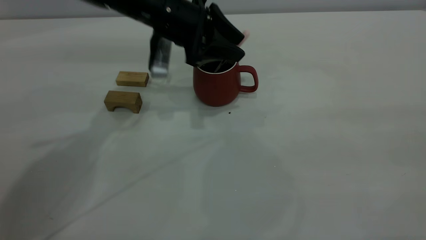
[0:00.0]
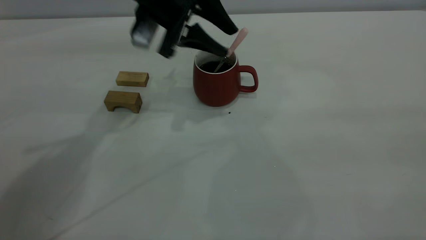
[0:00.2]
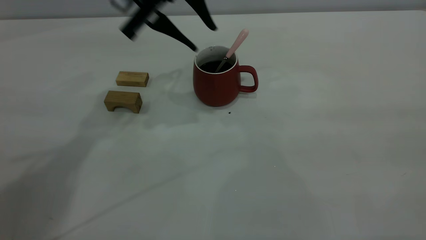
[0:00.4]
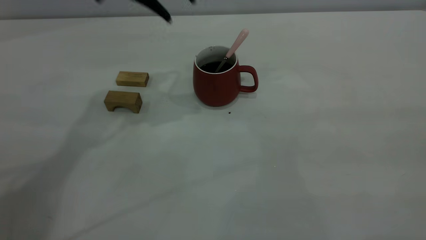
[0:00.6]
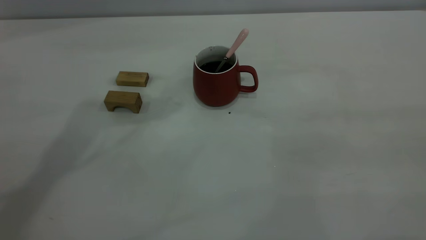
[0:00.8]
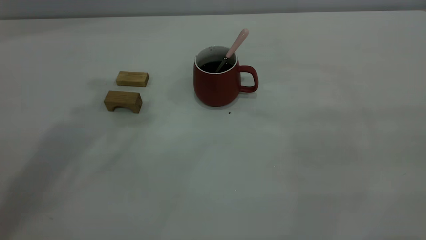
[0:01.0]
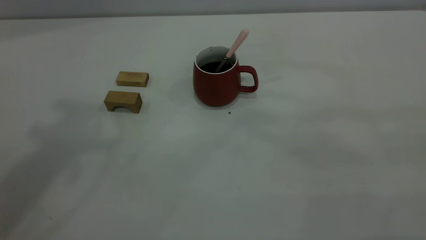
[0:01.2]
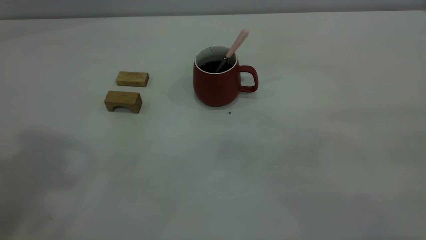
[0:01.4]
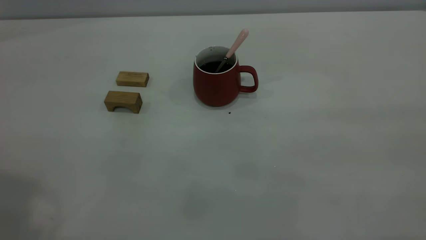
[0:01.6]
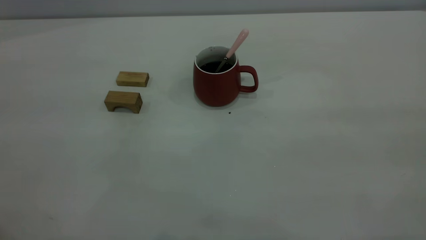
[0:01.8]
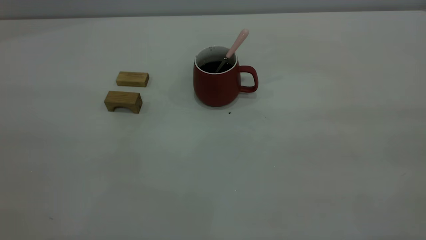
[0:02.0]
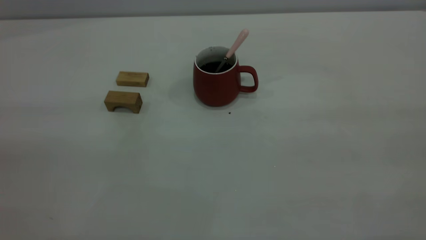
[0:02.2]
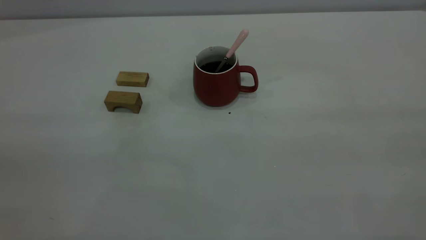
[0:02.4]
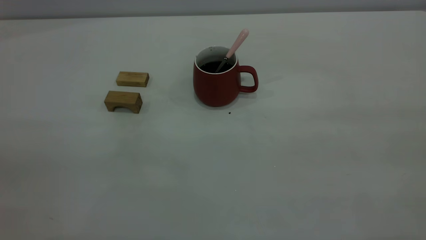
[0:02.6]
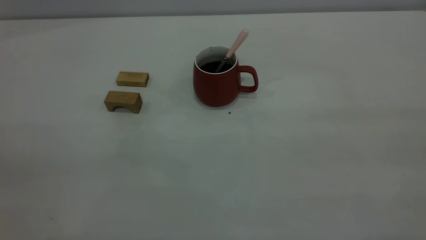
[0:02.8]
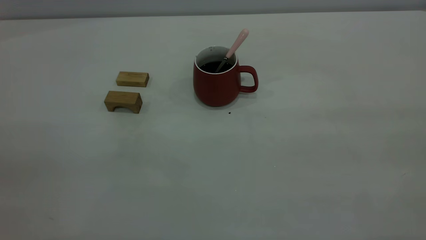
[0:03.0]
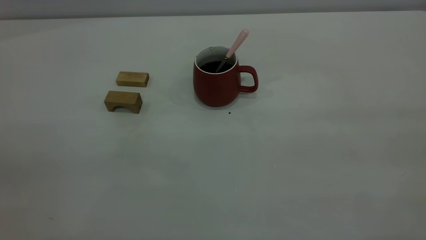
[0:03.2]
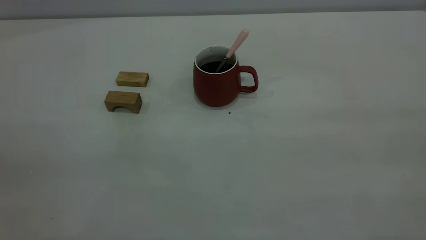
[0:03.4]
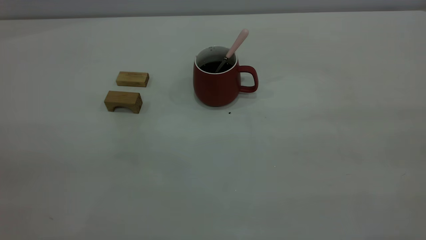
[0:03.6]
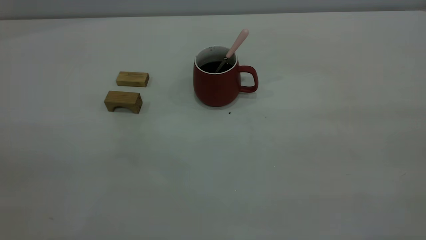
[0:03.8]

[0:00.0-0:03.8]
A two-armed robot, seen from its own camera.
0:00.0 to 0:01.2: The left gripper moves upward and backward, about 40 cm.
0:02.6 to 0:03.8: Both grippers stay put.

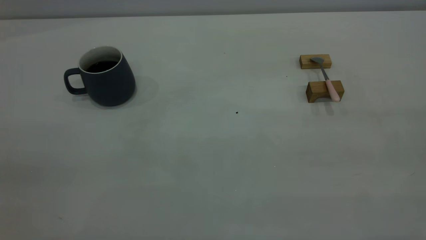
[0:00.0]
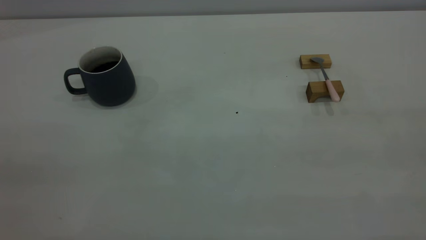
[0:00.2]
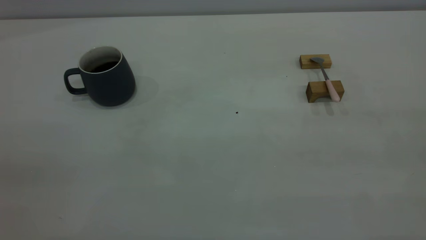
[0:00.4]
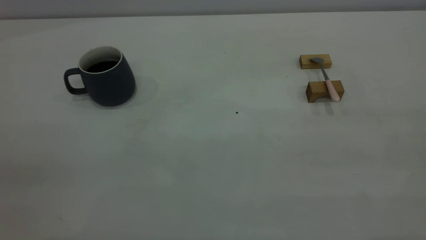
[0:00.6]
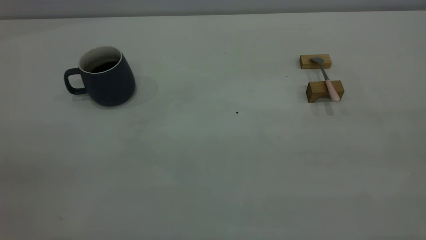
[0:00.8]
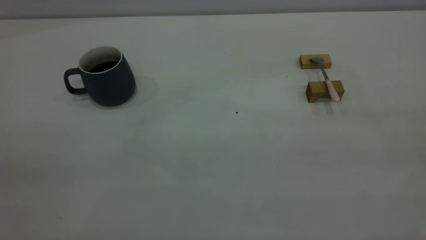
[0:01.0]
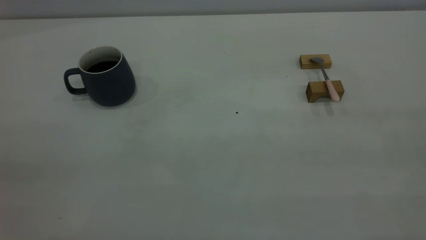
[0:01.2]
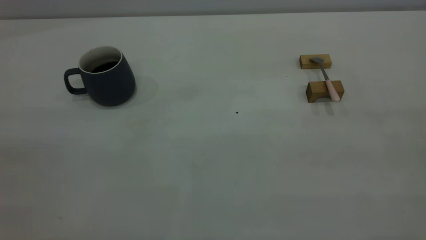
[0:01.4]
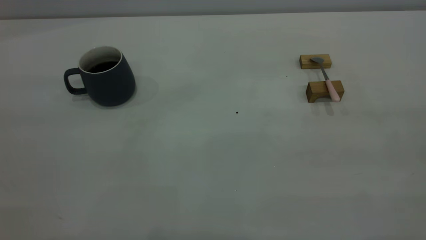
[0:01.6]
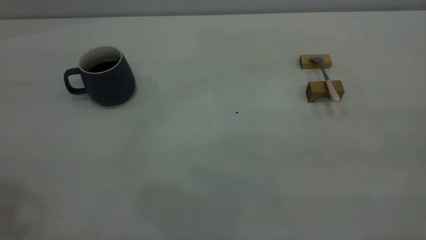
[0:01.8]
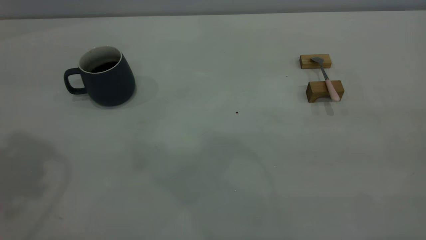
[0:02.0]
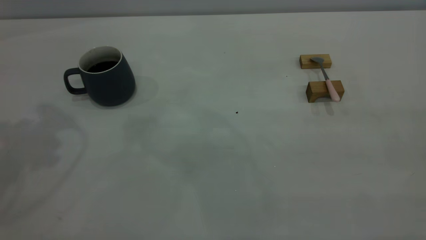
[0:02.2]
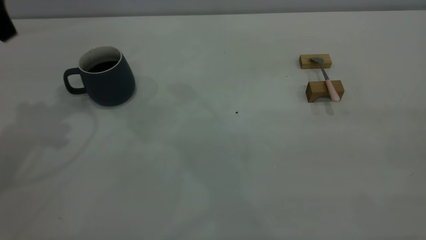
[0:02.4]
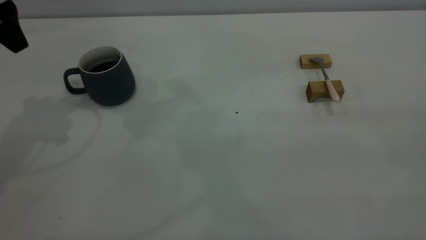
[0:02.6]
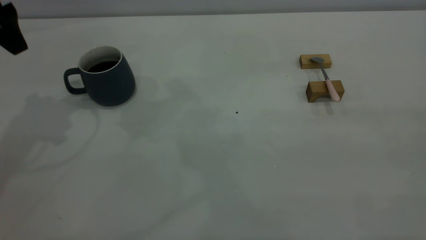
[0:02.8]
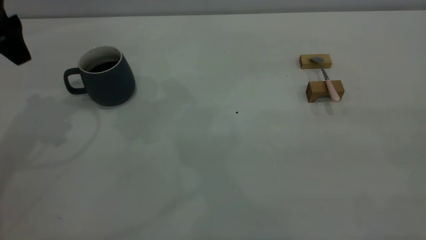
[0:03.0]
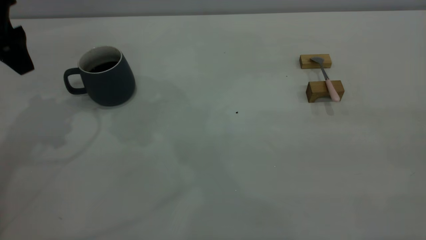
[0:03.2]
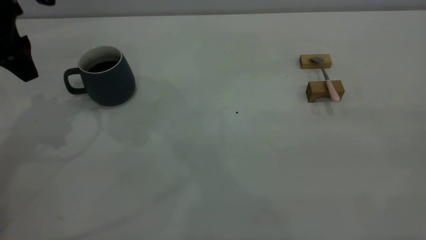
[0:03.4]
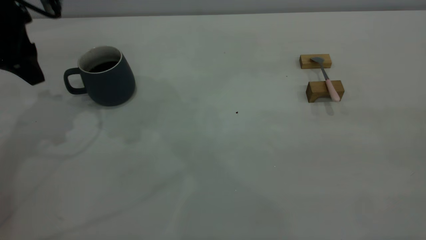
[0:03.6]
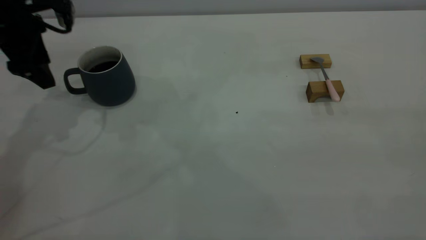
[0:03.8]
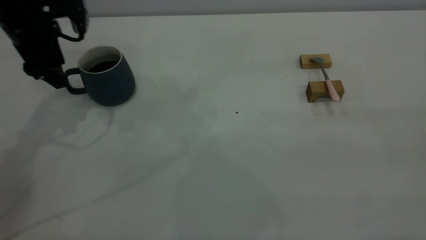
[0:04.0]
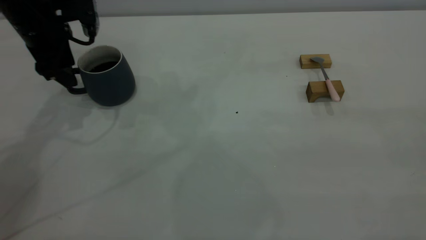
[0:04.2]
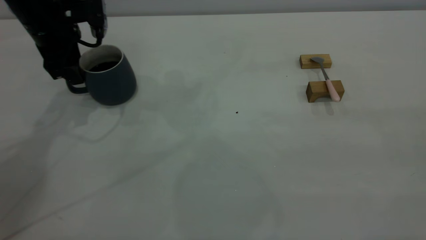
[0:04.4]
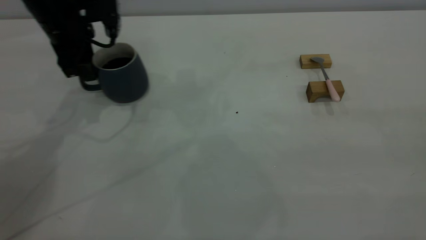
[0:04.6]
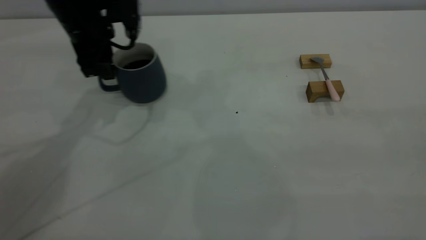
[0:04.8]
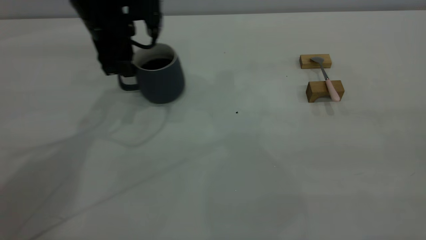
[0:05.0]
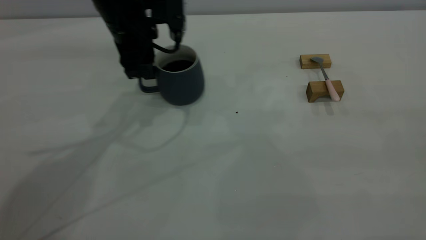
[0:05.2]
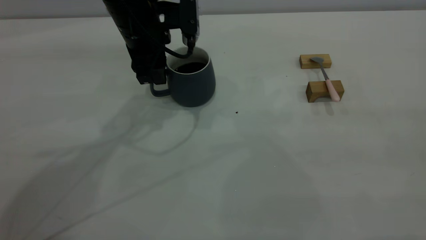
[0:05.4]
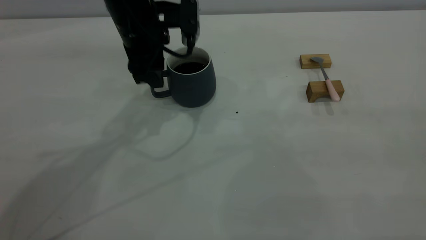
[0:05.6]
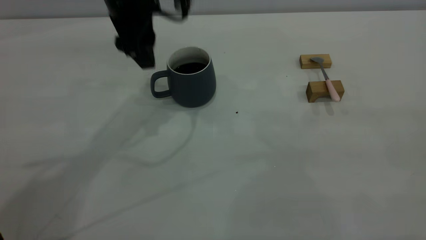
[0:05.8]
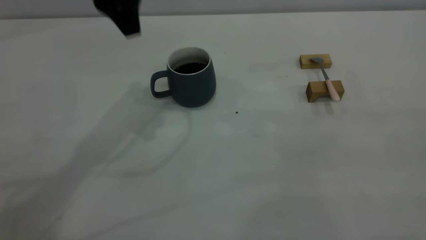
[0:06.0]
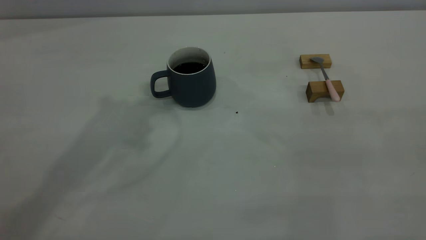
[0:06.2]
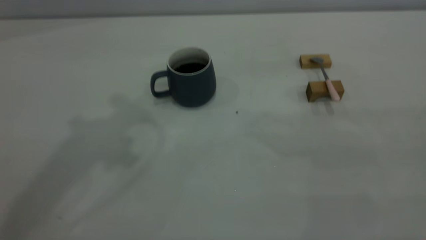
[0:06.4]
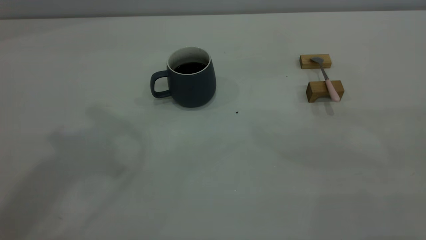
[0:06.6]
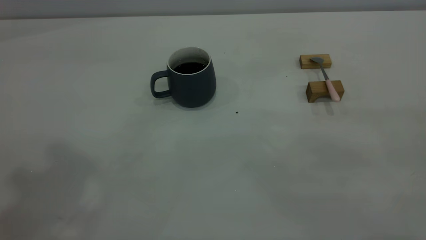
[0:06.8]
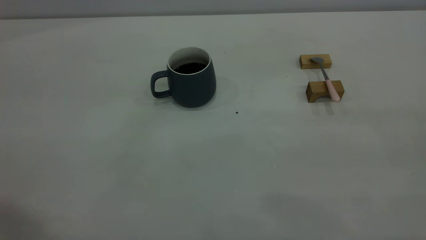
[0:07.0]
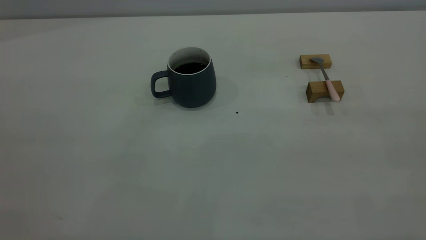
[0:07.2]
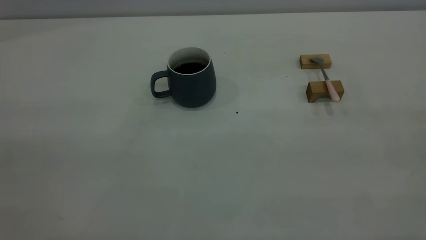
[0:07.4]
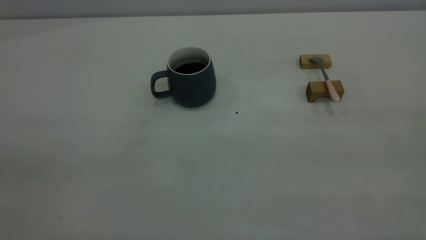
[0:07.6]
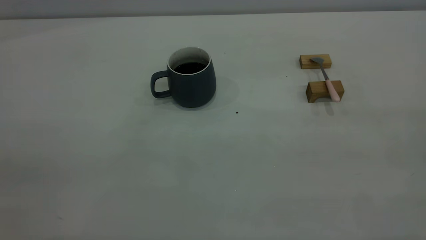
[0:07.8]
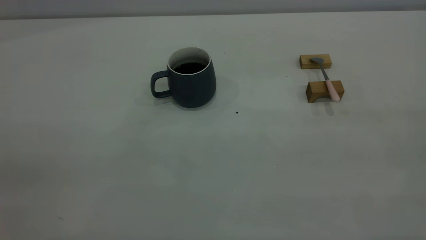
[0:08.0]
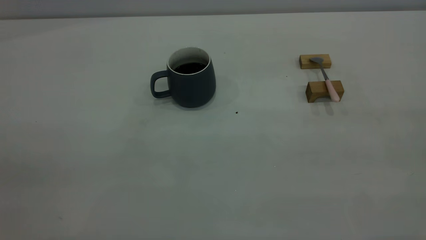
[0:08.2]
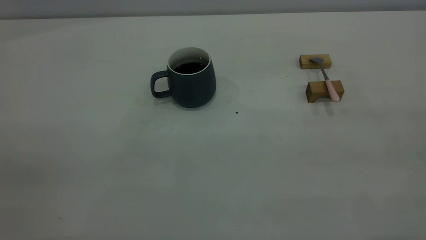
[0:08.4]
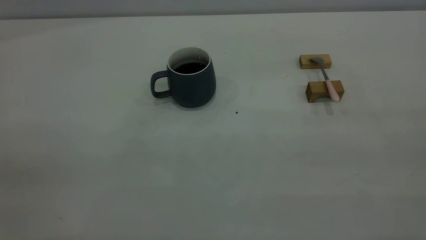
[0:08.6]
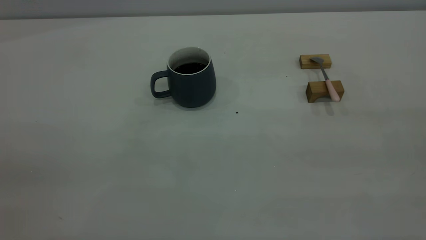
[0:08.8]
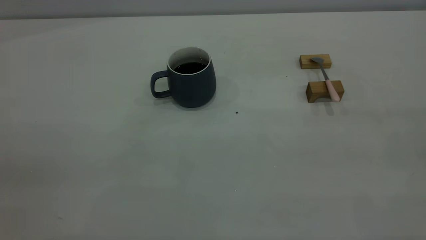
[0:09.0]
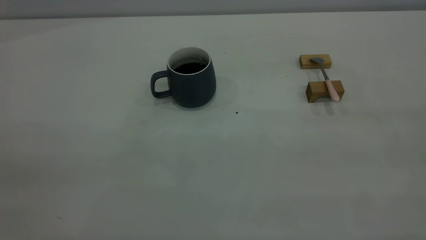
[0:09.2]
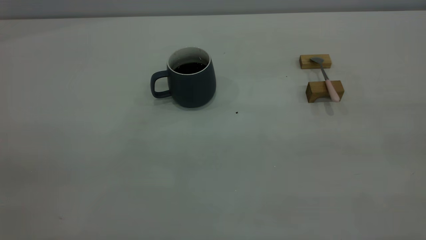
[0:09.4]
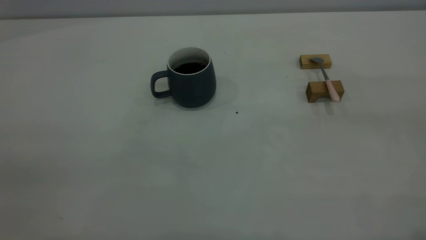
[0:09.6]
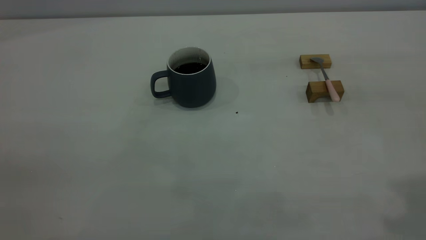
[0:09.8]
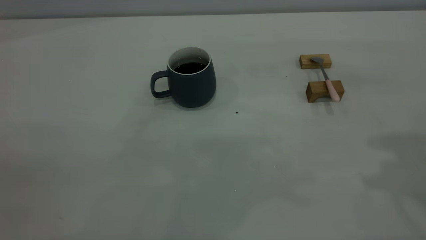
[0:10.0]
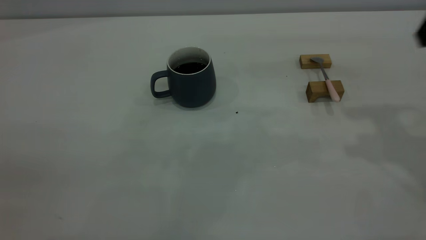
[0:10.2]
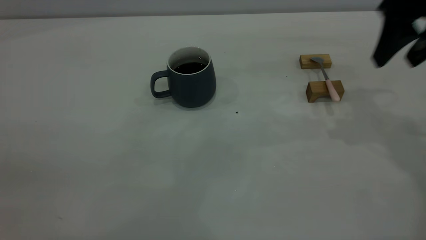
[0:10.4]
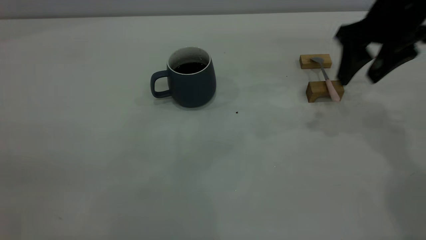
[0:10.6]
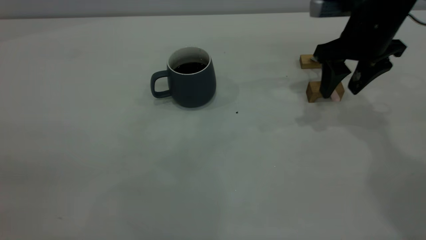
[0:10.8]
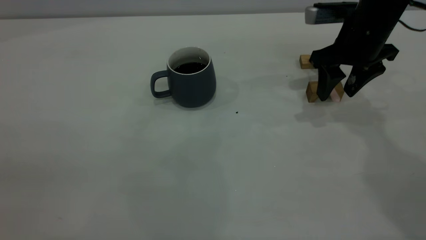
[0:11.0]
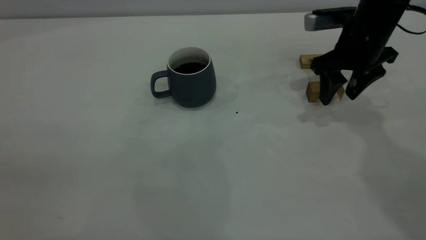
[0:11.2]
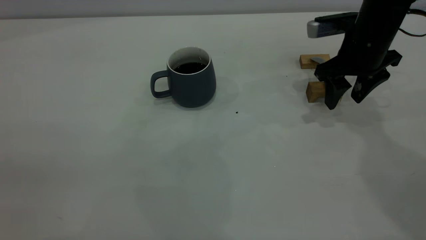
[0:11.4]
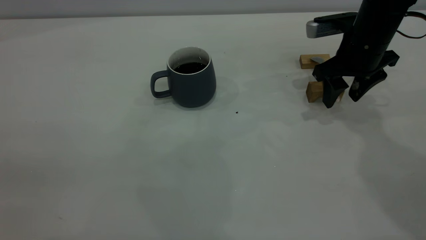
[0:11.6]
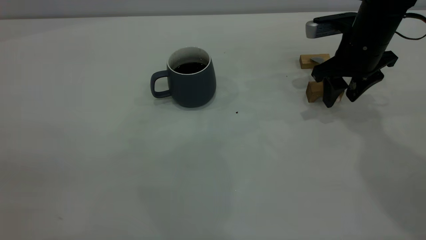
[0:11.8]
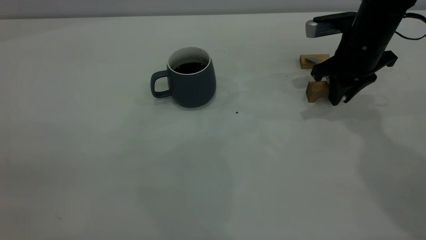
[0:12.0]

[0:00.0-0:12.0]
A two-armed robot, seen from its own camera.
Step, 0:00.0 to 0:05.8: Move the cup with coffee to the center of view.
0:01.6 to 0:03.0: The left gripper is displaced forward and downward by some 35 cm, and opens its fingers.
0:03.0 to 0:04.4: The left gripper goes roughly 10 cm downward and forward, and closes.
0:04.4 to 0:06.0: The left gripper moves upward and to the right, roughly 20 cm, and opens up.
0:06.0 to 0:07.6: The left gripper goes about 40 cm backward and to the left, and closes up.
0:07.6 to 0:09.0: The two grippers keep their place.
0:09.0 to 0:10.4: The right gripper travels forward by some 35 cm, and opens its fingers.
0:10.4 to 0:12.0: The right gripper moves downward and forward, roughly 15 cm, and closes.

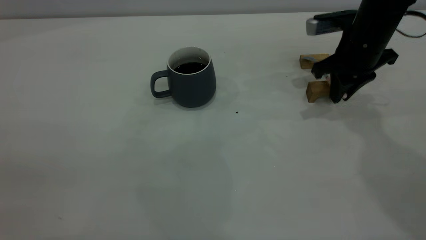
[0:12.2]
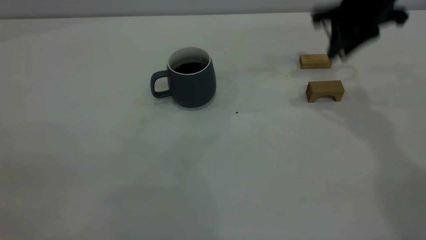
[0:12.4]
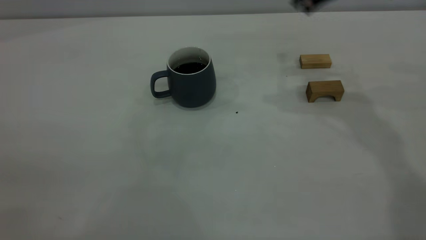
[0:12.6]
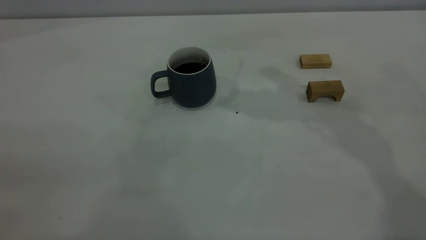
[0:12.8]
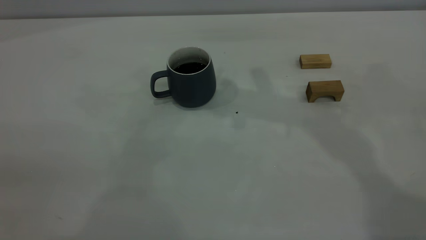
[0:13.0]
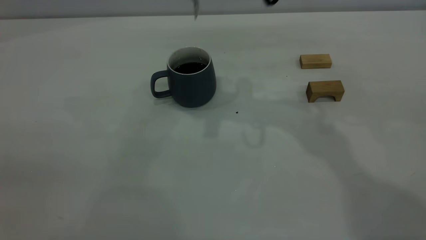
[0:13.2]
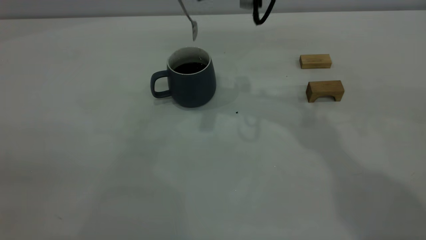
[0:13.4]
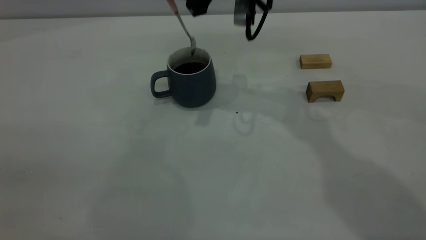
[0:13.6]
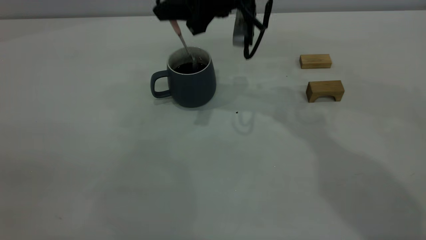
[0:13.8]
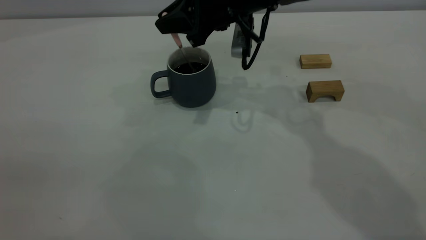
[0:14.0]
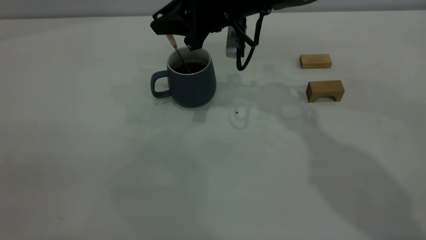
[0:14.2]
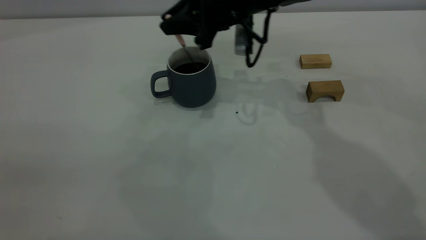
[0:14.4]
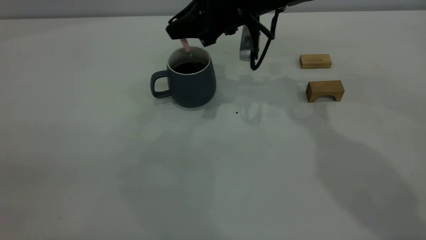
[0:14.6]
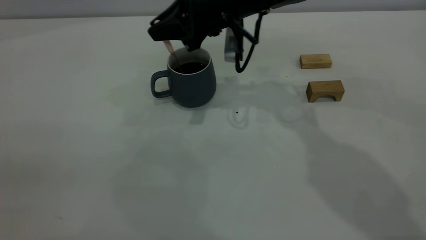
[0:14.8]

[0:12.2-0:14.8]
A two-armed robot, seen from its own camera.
0:12.2 to 0:13.4: The right gripper shifts about 20 cm to the left and upward.
0:13.4 to 0:14.8: The right gripper is displaced downward by approximately 10 cm.
